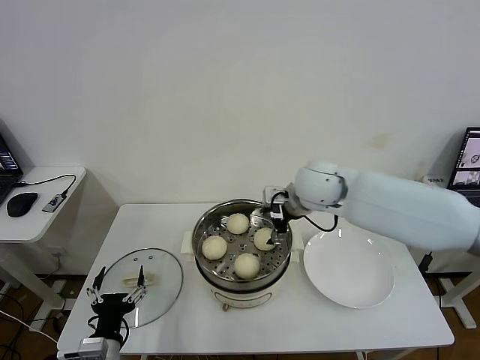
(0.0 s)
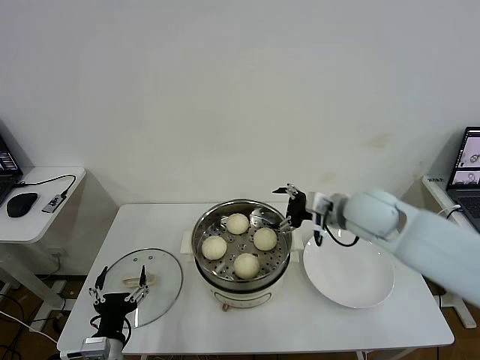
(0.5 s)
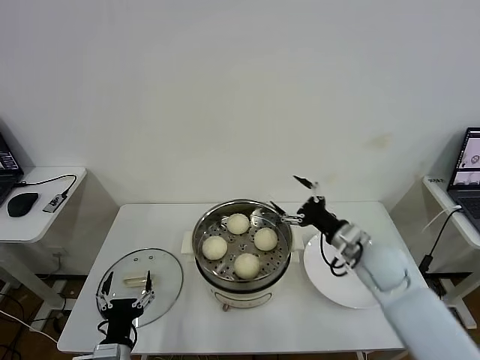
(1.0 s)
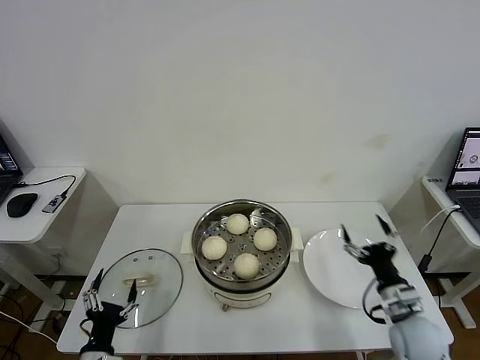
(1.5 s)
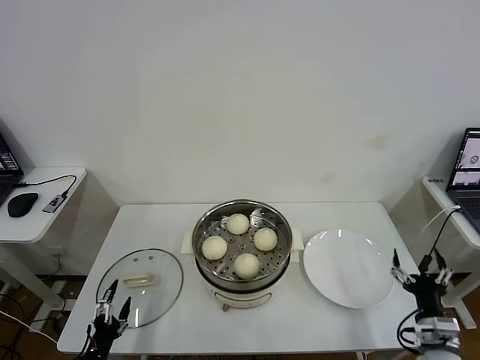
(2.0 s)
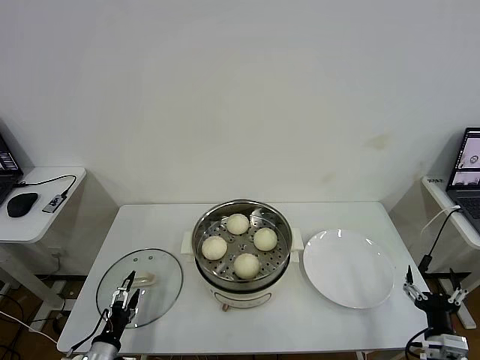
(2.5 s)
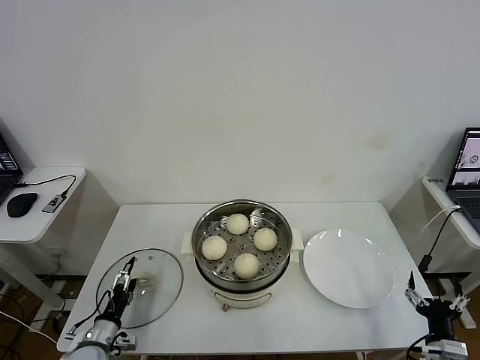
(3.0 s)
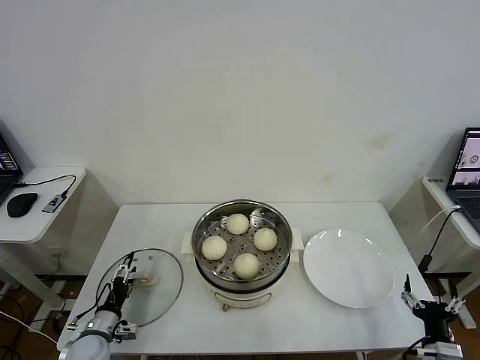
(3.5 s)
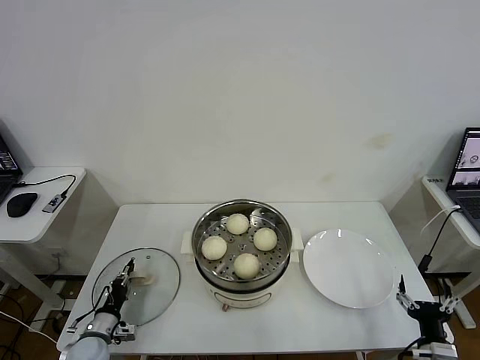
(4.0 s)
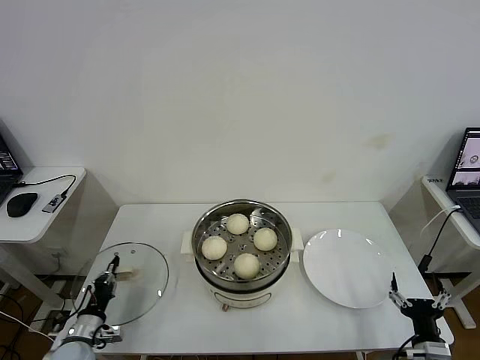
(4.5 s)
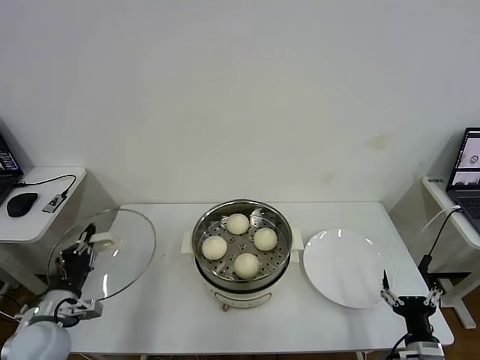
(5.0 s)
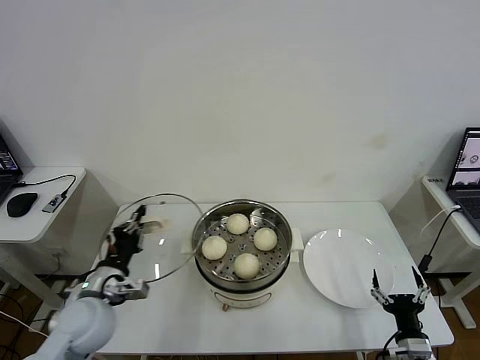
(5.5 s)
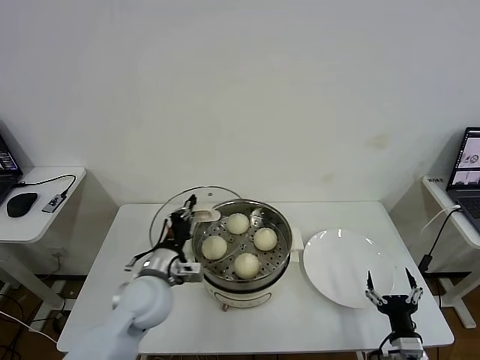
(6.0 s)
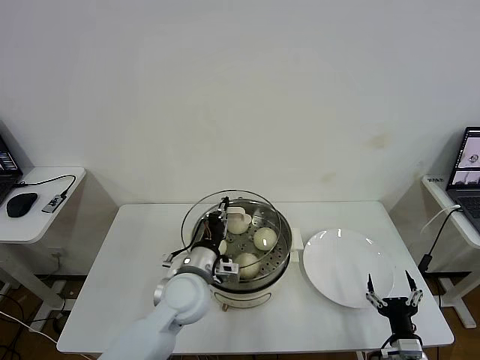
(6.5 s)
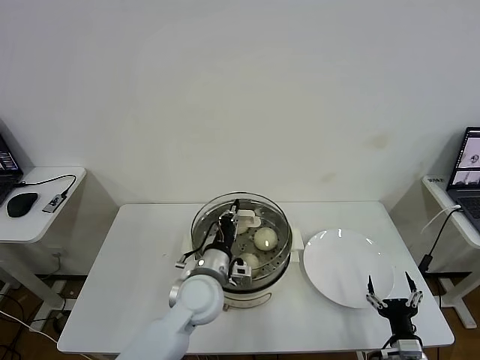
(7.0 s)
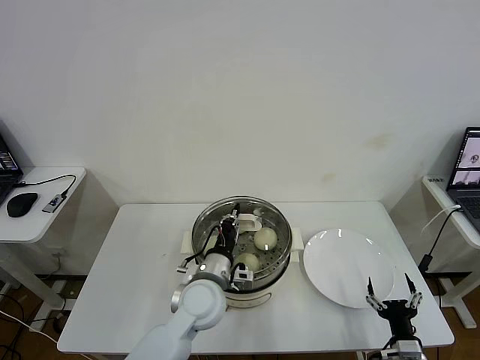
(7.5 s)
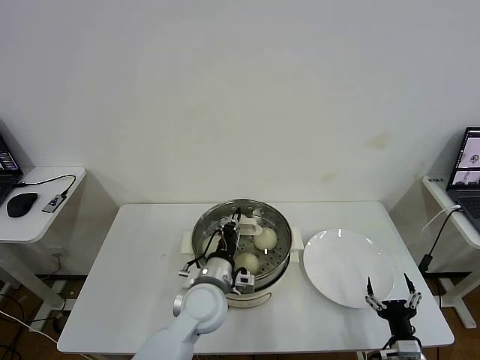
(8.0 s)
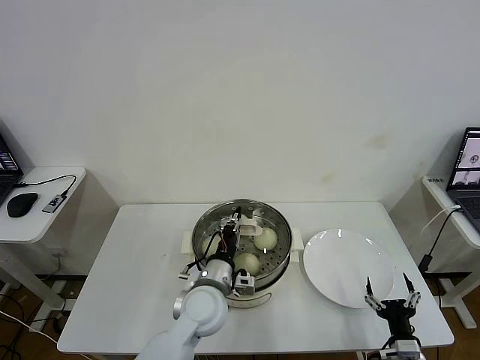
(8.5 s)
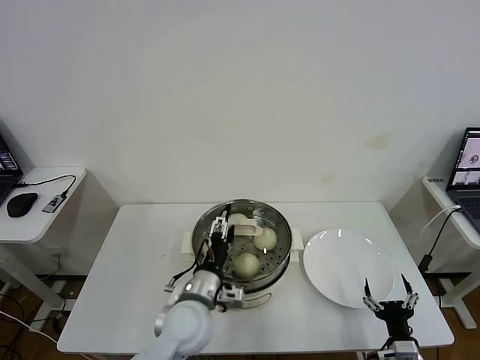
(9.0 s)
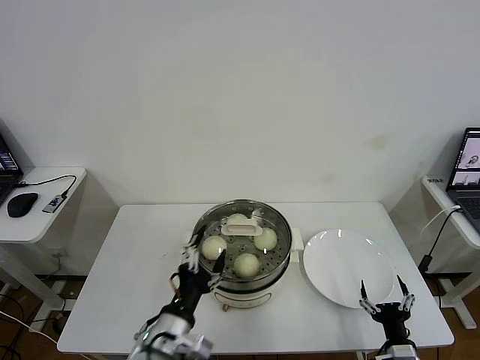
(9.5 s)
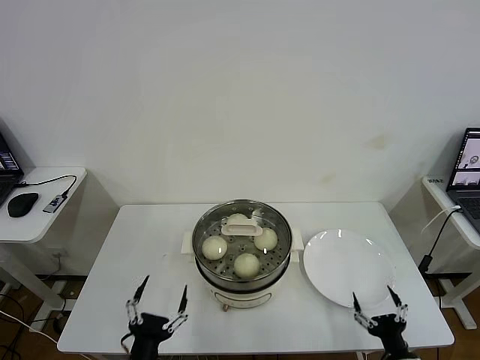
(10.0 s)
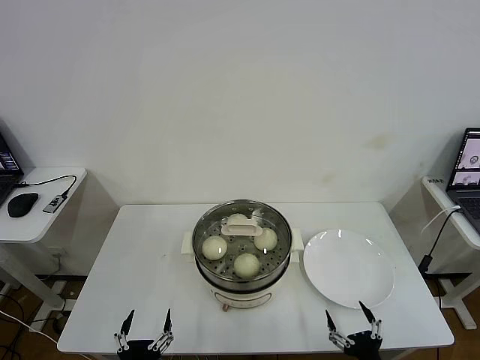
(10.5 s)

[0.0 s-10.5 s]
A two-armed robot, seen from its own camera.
Task of the whole recording: take steamed baozi put them in steamer then cover it.
Step, 0.5 to 4.0 s: Grasp the pot lid with left gripper.
Step, 4.5 to 9.0 s: Place the pot lid on the steamer with left gripper.
0.0 to 2.0 s: The left gripper goes about 10 cm to the left and downward; the right gripper heads backward, downward and to the right, covering about 40 cm.
2.0 to 4.0 s: The right gripper changes place by roughly 5 cm. The left gripper travels forward and downward by about 15 cm, and closes up.
4.0 to 6.5 s: The left gripper moves to the right and upward, approximately 35 cm.
6.5 to 8.5 s: The left gripper ends up roughly 5 cm from where it was.
8.5 to 10.5 s: The right gripper shifts approximately 5 cm backward. Meanwhile the left gripper is displaced backward and to the left by approximately 30 cm, and opens up.

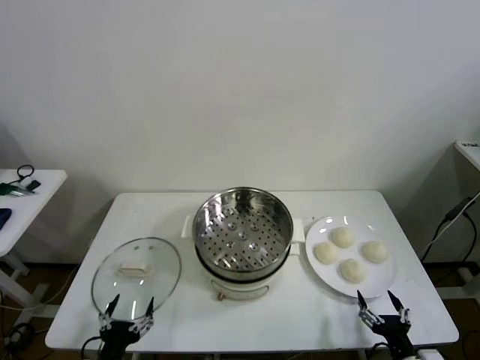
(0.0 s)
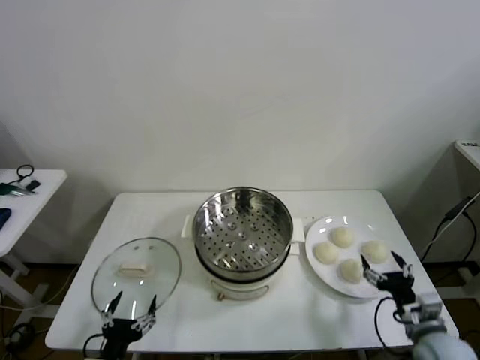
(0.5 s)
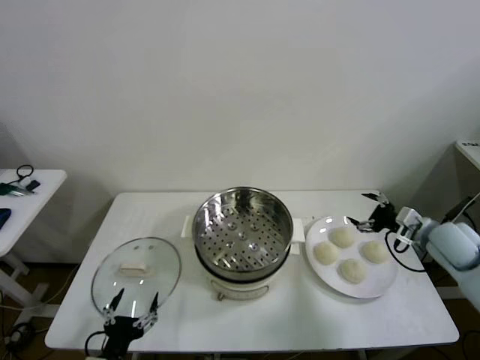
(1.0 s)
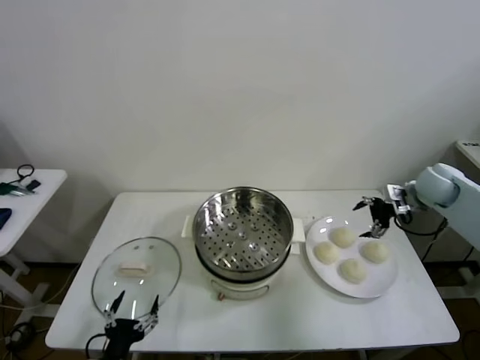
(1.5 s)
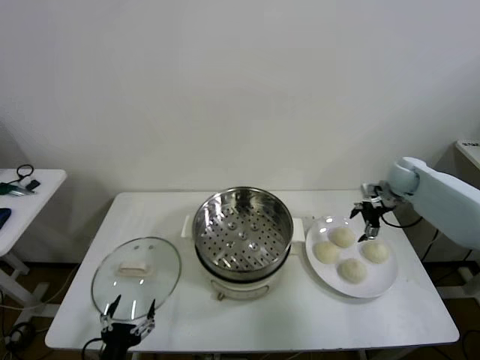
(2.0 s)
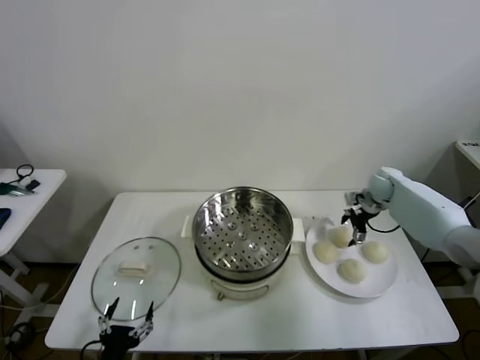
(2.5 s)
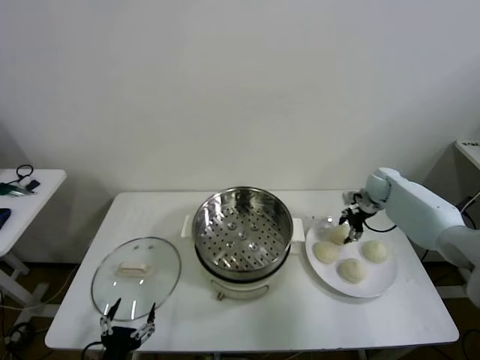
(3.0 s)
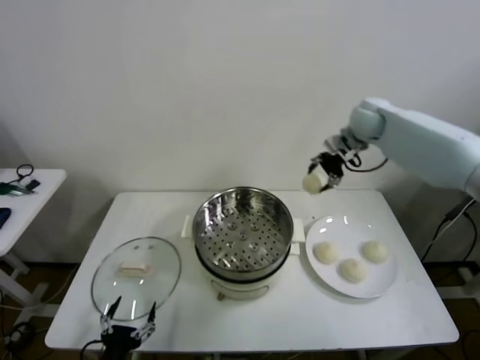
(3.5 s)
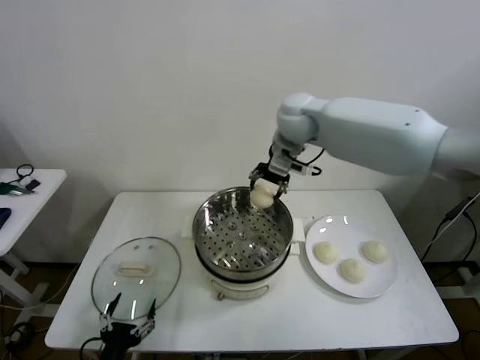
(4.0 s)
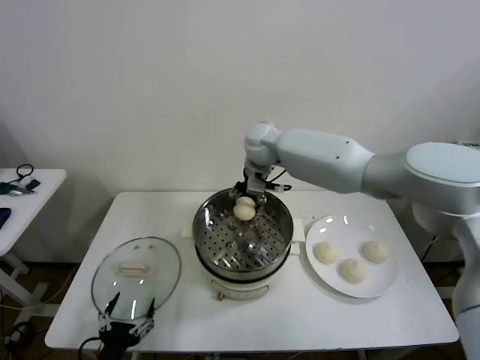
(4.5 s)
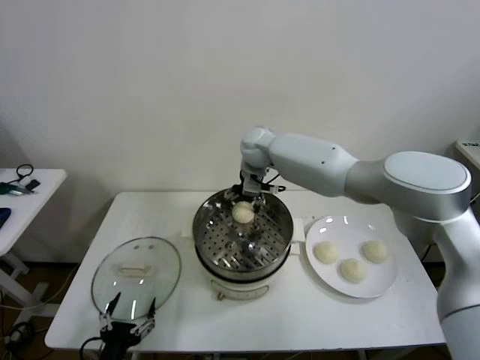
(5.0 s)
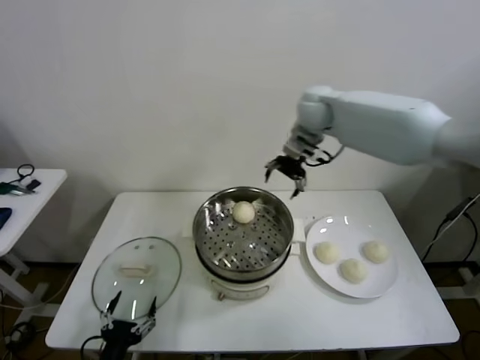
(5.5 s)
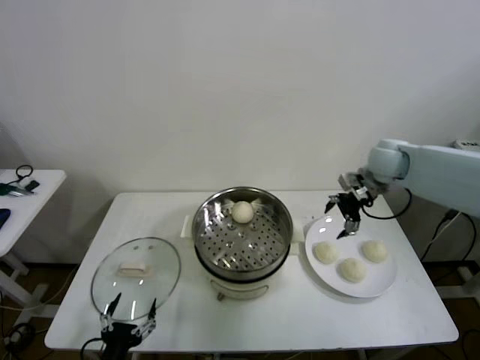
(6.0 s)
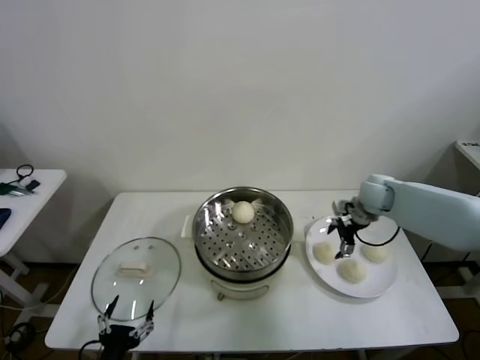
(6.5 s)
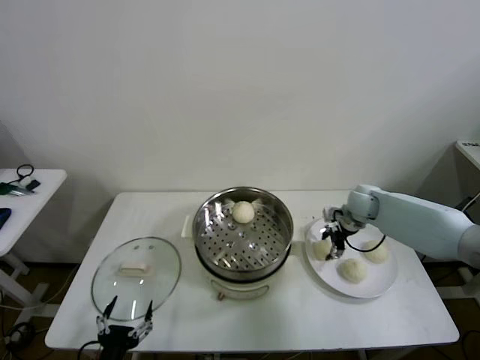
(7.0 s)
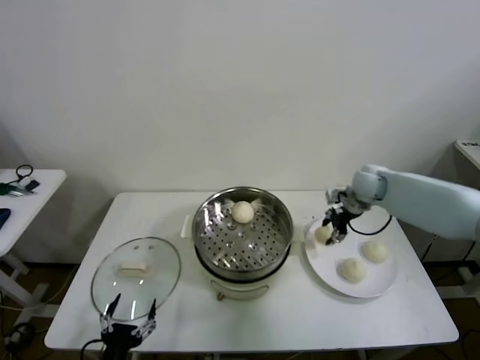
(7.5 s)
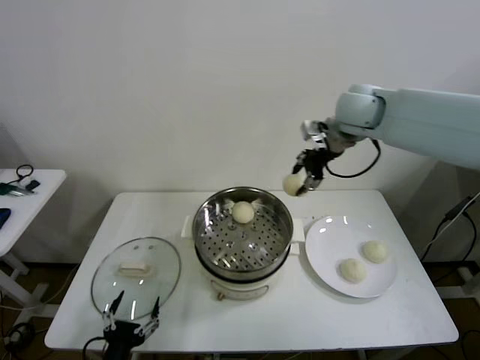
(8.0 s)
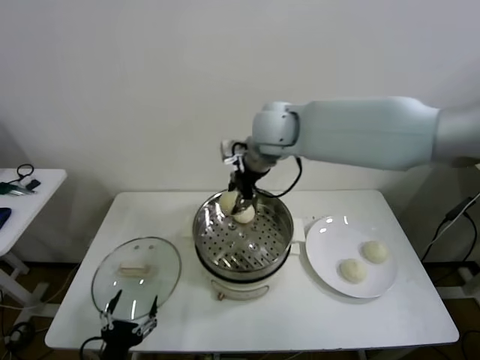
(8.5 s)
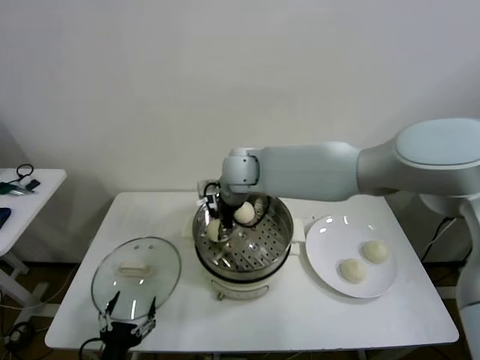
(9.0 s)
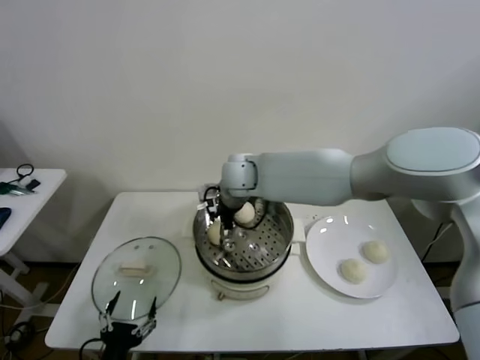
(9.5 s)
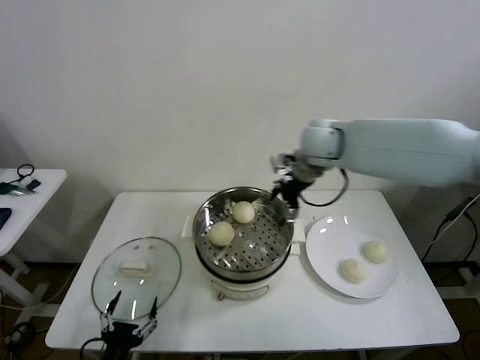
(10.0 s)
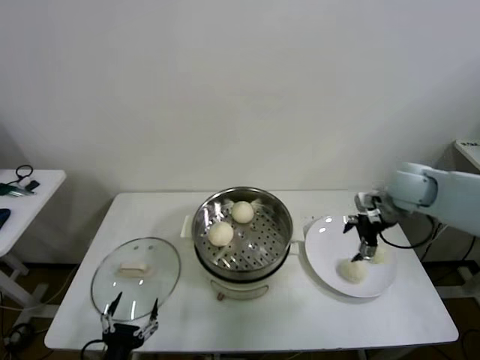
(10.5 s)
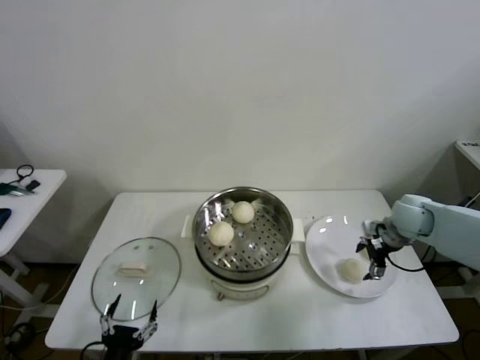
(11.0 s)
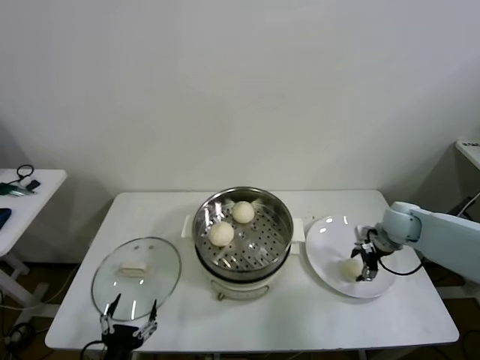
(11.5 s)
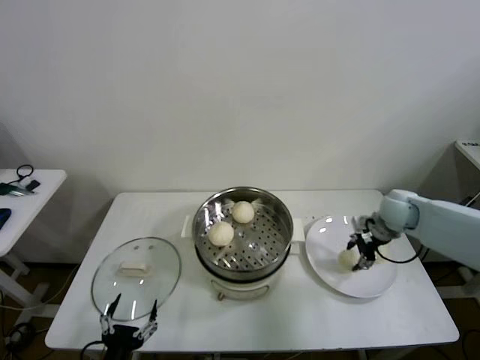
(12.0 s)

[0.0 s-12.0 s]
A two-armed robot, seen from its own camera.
Task of the whole recording: take steamed baozi put them in steamer then cover it.
Step, 0.0 to 3.0 s: Grasp the baozi in the plate with right gripper.
Step, 3.5 to 5.0 s: Place the baozi on the steamer with right gripper.
Step, 5.5 to 7.0 s: Grasp the baozi in the plate with right gripper.
Step, 7.5 to 9.0 s: Place the baozi on the steamer with right gripper.
Step, 10.0 to 11.5 s: Grasp the baozi in the plate with right gripper.
2.0 to 4.0 s: The right gripper shifts about 35 cm to the left and upward, and closes.
4.0 to 6.0 s: The right gripper goes some 25 cm to the right and downward, and opens up.
6.0 to 8.0 s: The right gripper moves upward and to the left, about 20 cm, and closes up.
8.0 to 10.0 s: The right gripper moves downward, about 10 cm, goes to the left and returns, approximately 20 cm each way, and opens its fingers.
10.0 to 12.0 s: The right gripper is displaced to the right and downward by some 25 cm, and closes.

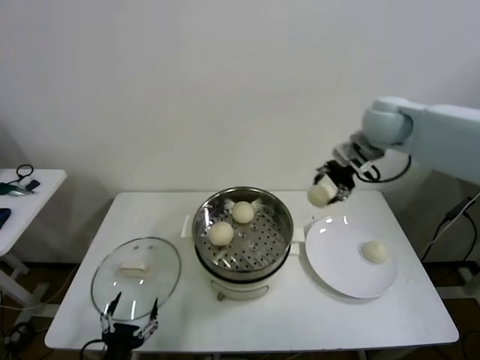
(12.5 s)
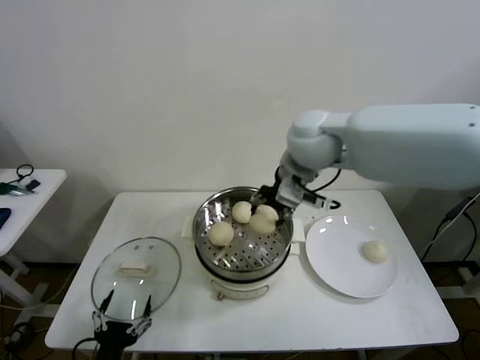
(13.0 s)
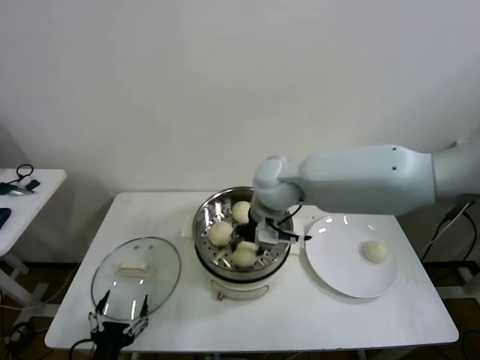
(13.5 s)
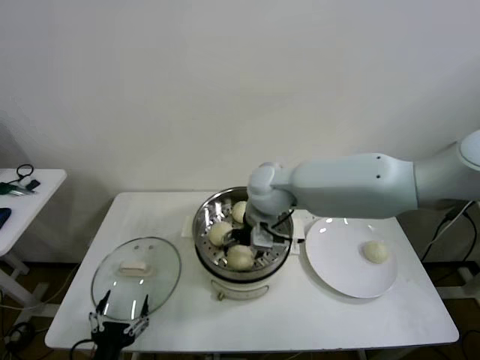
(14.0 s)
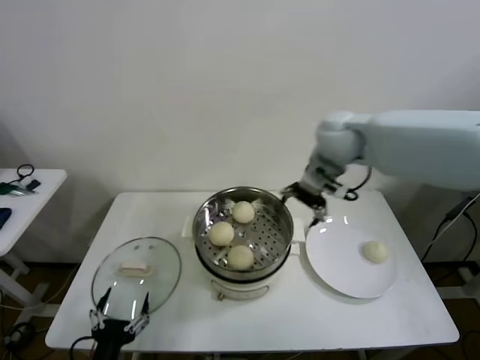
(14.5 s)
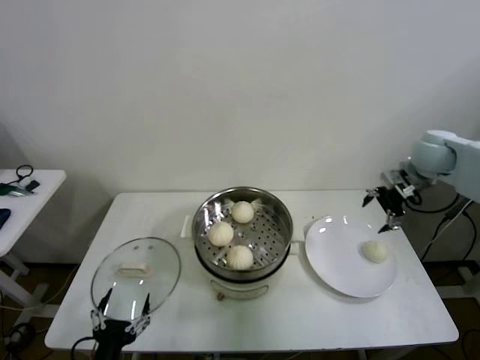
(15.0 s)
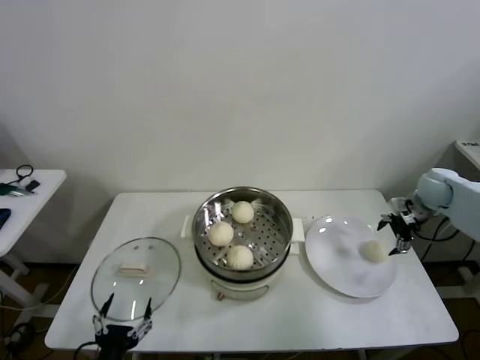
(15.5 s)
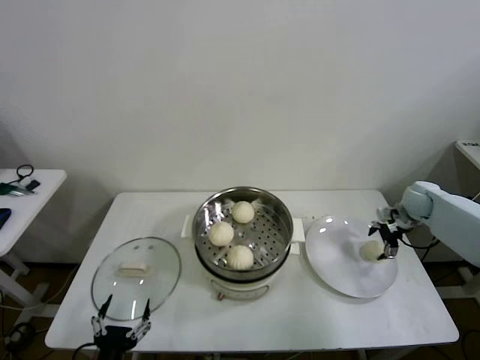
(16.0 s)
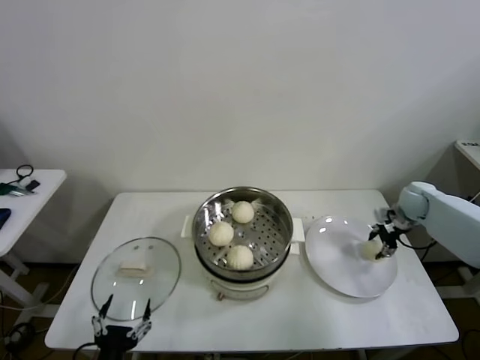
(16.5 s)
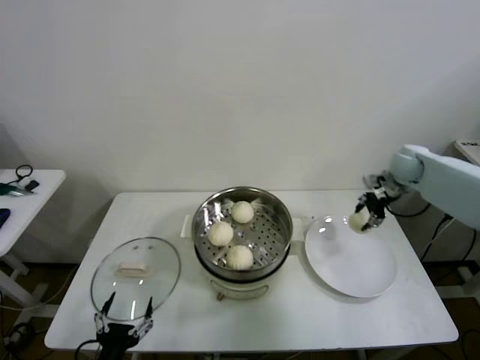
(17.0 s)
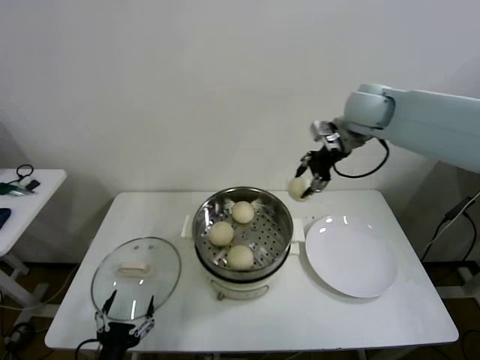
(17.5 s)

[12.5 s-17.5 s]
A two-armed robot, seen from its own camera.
Task of the whole recording: take steamed baozi put them in steamer then cover it.
Step, 12.5 to 14.0 s: Place the baozi on the steamer with right gripper.
Step, 14.5 to 16.5 s: Grasp the baozi in the plate with right gripper.
12.5 to 15.0 s: The right gripper goes approximately 20 cm to the right and downward, and opens its fingers.
15.0 to 17.5 s: The right gripper is displaced to the left and upward by some 20 cm, and closes up.
